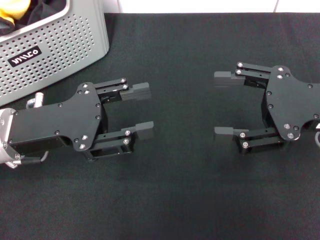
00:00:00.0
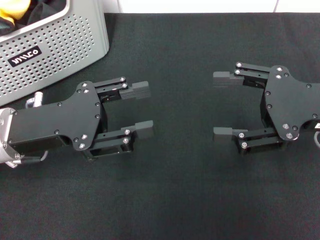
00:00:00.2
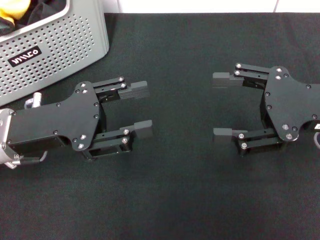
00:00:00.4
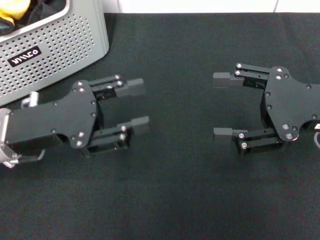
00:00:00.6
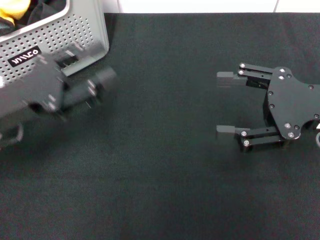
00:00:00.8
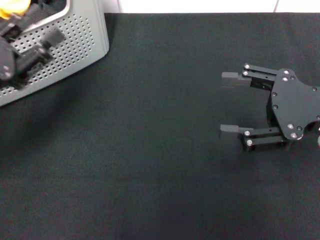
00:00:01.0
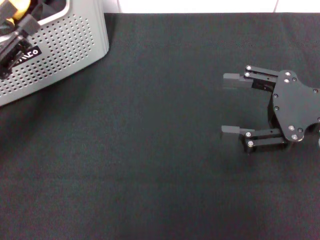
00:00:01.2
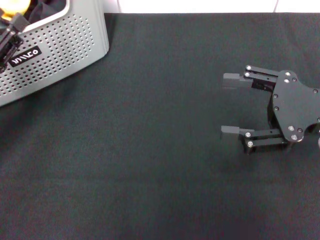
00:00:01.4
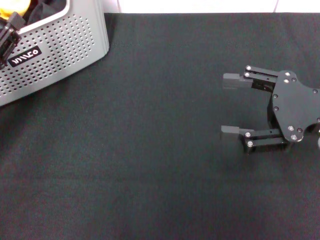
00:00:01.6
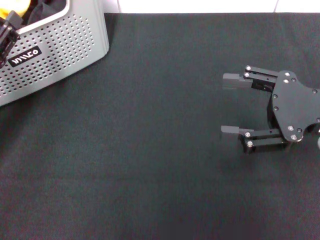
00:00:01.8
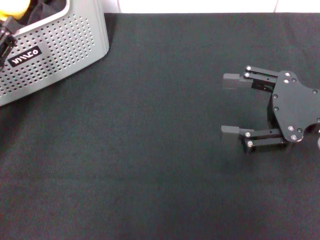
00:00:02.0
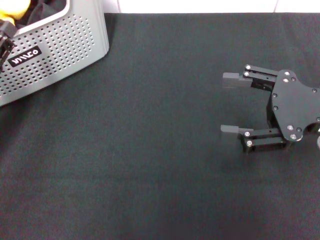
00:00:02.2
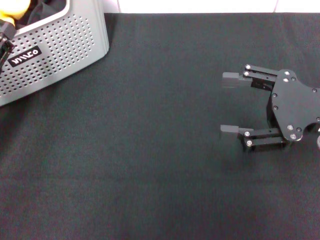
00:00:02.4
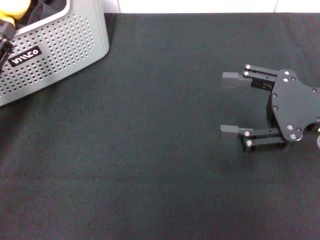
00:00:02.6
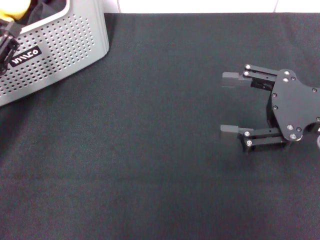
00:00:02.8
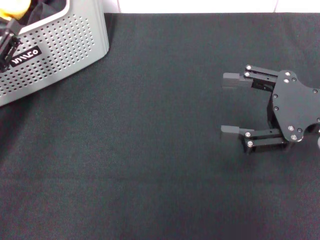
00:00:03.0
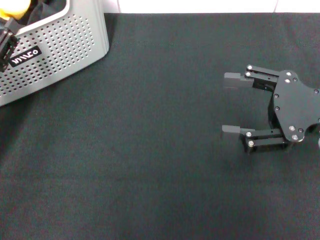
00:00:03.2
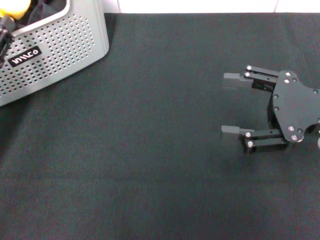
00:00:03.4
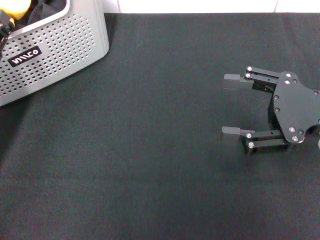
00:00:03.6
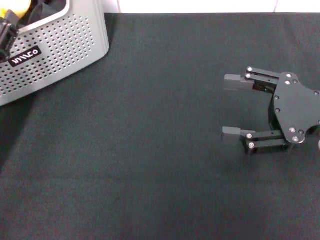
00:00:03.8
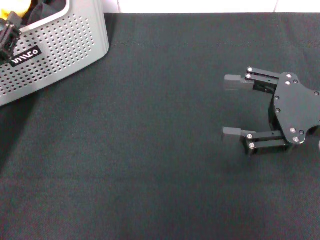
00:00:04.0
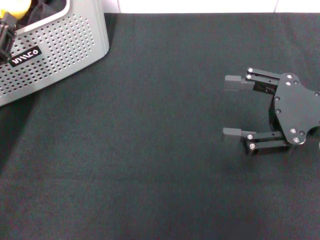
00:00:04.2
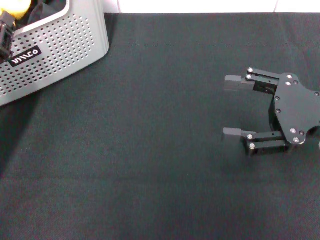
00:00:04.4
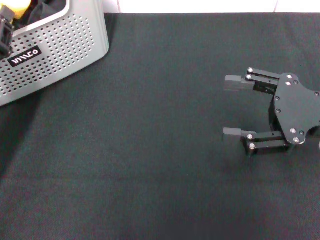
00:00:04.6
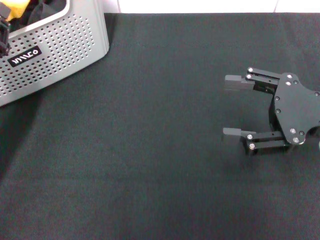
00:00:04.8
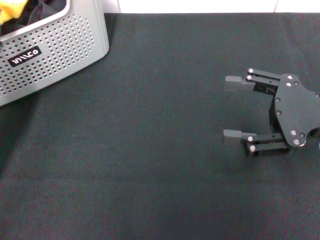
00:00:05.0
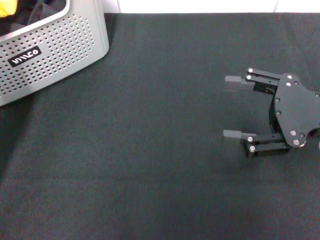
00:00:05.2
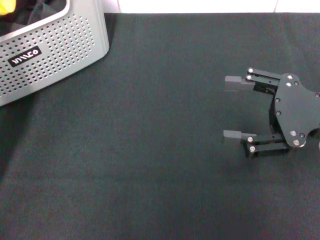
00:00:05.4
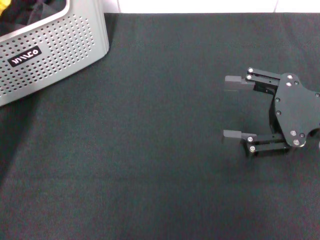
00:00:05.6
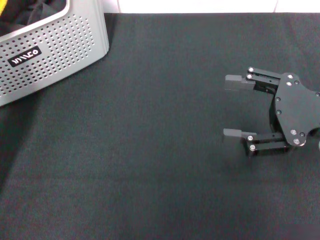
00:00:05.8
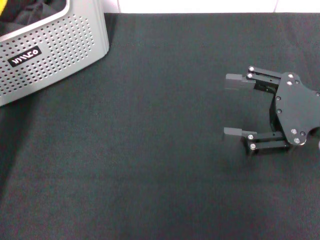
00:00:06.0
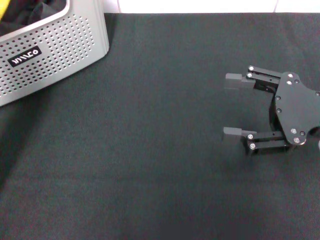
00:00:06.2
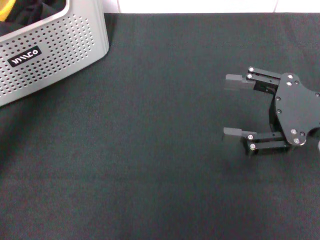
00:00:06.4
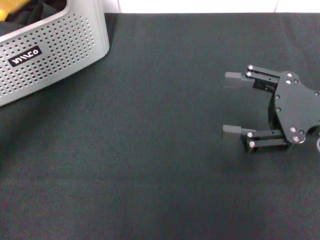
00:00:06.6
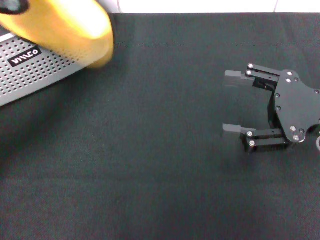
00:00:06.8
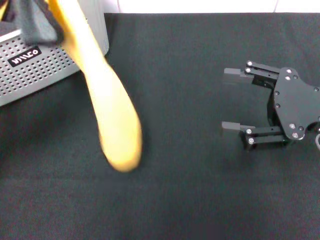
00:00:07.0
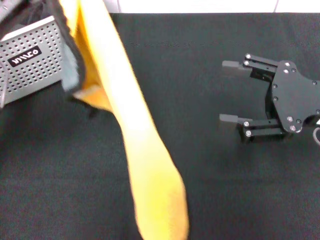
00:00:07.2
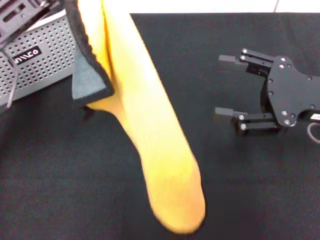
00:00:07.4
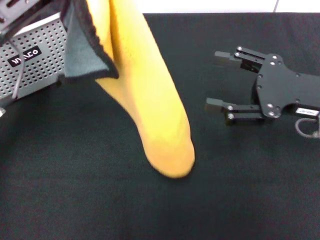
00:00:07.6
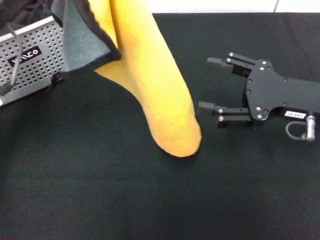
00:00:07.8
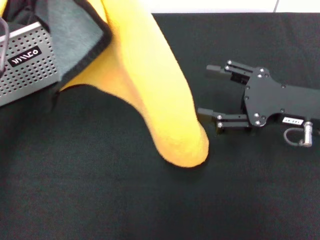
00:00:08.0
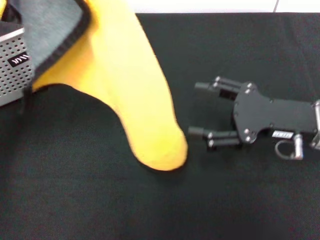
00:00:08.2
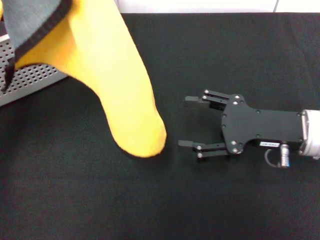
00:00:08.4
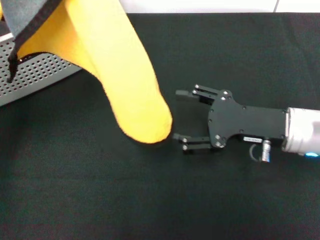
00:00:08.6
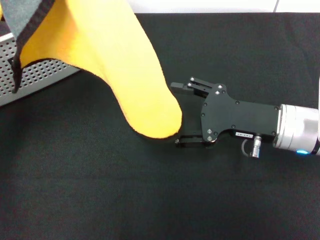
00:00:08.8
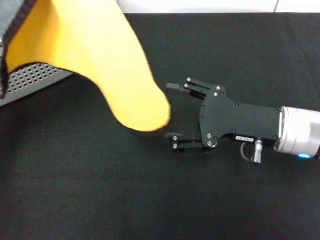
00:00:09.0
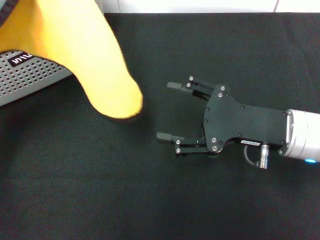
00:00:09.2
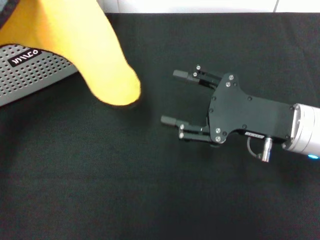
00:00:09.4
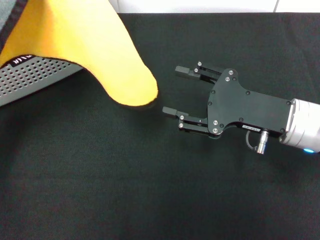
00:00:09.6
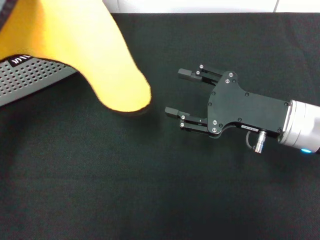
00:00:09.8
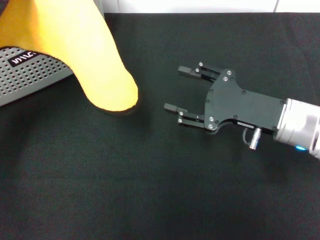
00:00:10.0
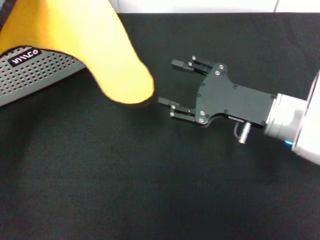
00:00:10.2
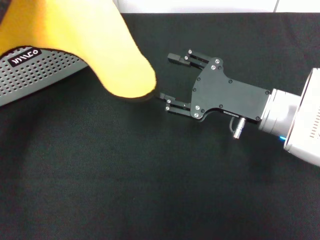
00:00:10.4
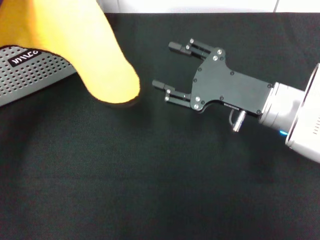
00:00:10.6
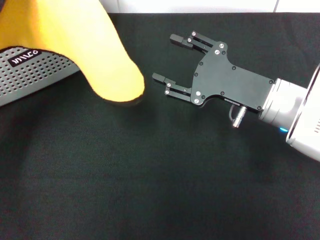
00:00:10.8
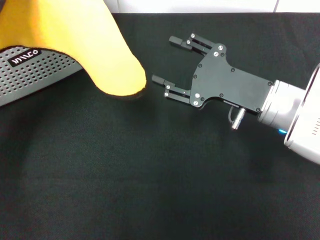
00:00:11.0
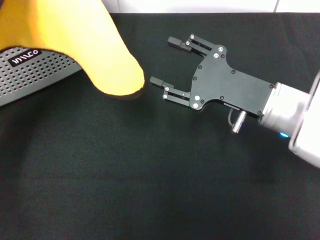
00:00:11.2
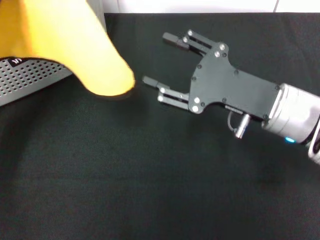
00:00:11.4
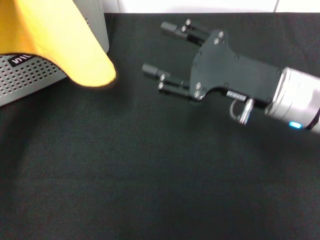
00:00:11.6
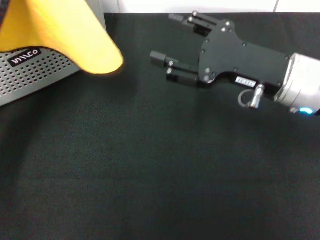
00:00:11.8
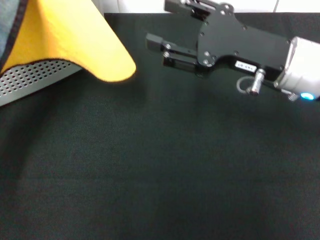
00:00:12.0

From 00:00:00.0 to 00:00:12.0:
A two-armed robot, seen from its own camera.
Task of the whole recording: pick up the towel from the storage box and lay it flat on the black tablecloth.
Step, from 00:00:00.0 to 00:00:04.8: Pick up a towel with the left gripper.
From 00:00:00.0 to 00:00:01.6: The left gripper shifts approximately 10 cm to the left.
From 00:00:01.6 to 00:00:04.4: The grippers move only a little.
From 00:00:04.4 to 00:00:06.0: The left gripper closes up.
From 00:00:06.0 to 00:00:07.6: The left gripper shifts approximately 10 cm upward and to the right.
From 00:00:07.6 to 00:00:09.0: The right gripper moves to the left, approximately 5 cm.
From 00:00:10.4 to 00:00:12.0: The right gripper is displaced upward by about 5 cm.

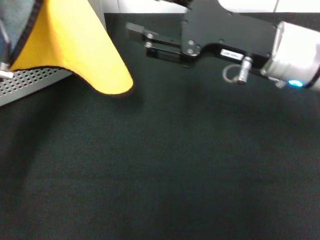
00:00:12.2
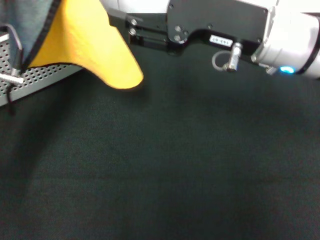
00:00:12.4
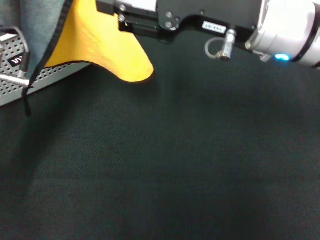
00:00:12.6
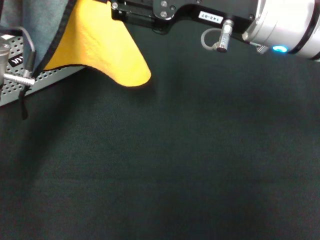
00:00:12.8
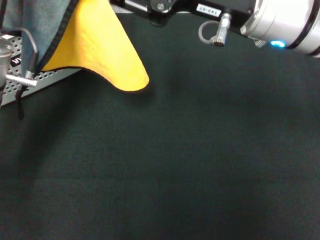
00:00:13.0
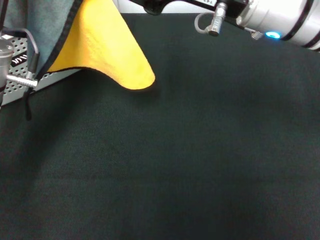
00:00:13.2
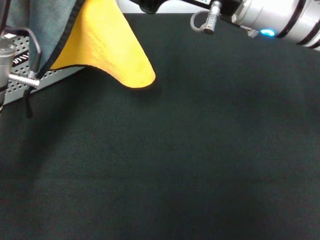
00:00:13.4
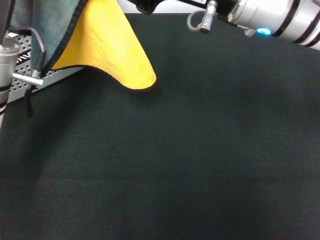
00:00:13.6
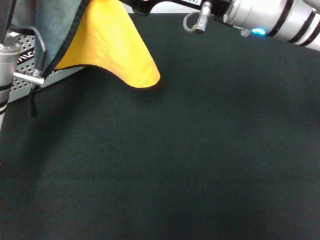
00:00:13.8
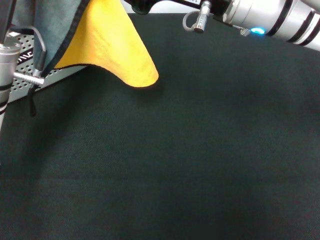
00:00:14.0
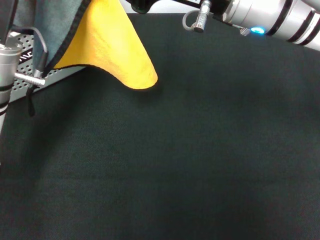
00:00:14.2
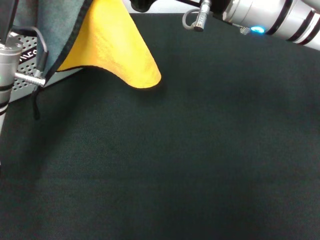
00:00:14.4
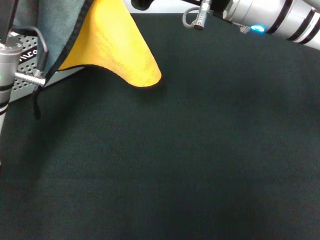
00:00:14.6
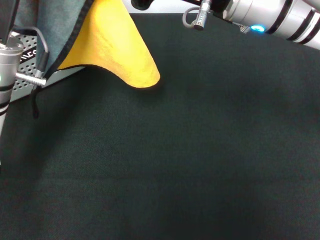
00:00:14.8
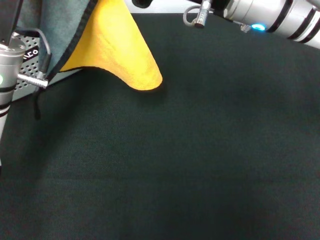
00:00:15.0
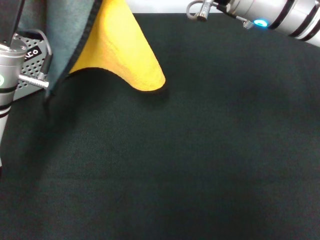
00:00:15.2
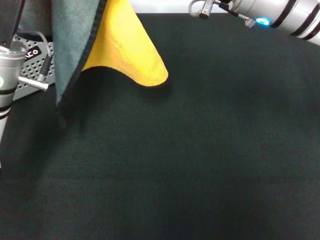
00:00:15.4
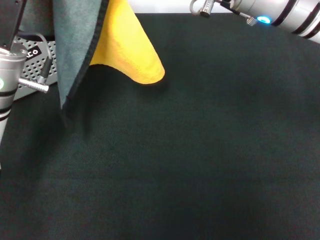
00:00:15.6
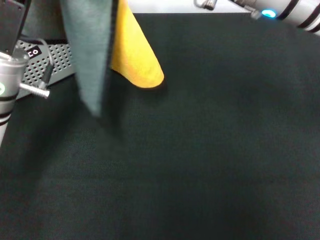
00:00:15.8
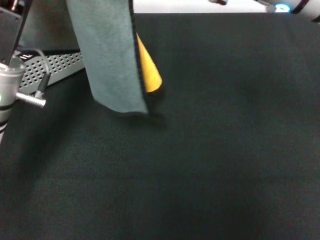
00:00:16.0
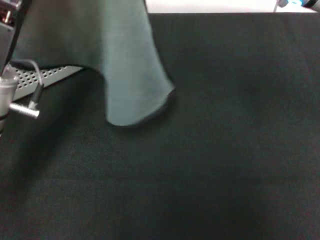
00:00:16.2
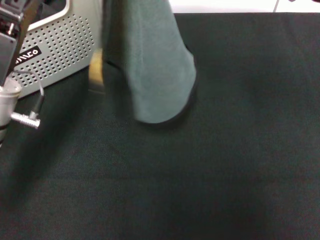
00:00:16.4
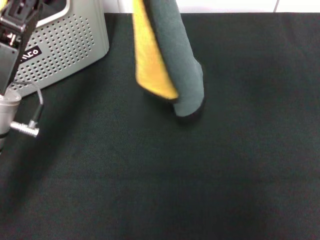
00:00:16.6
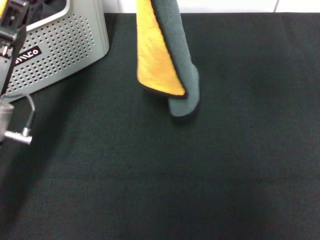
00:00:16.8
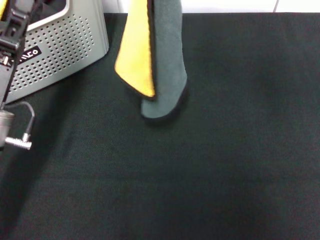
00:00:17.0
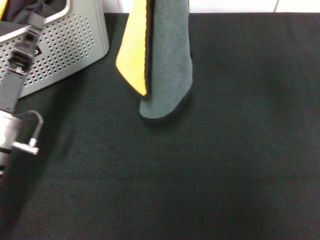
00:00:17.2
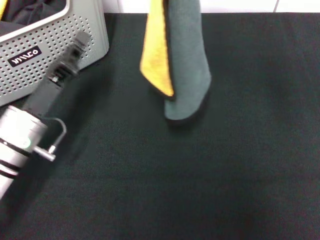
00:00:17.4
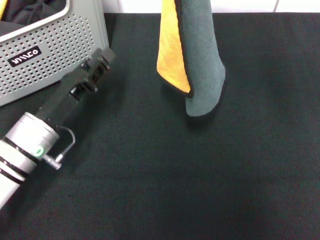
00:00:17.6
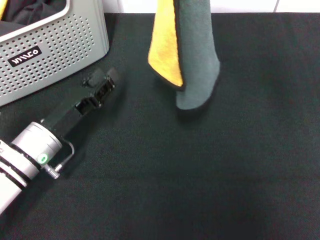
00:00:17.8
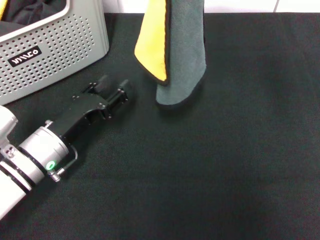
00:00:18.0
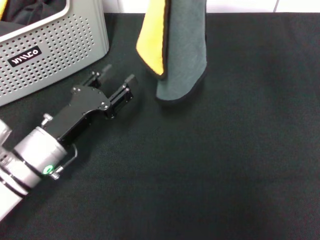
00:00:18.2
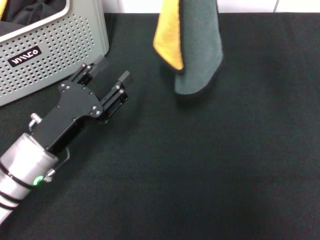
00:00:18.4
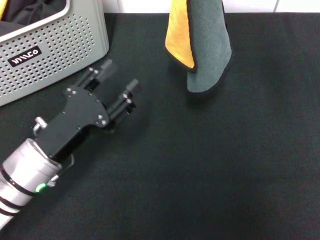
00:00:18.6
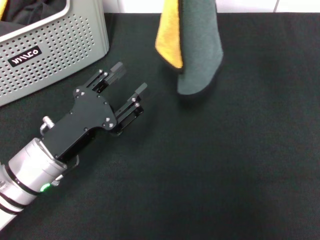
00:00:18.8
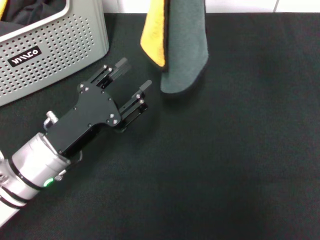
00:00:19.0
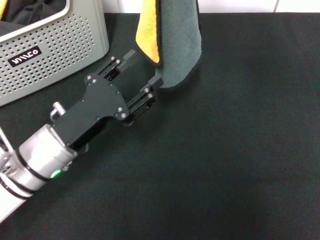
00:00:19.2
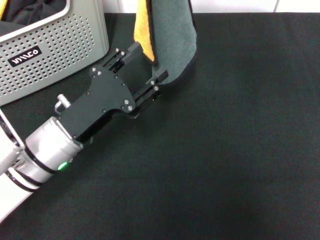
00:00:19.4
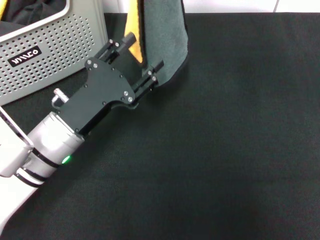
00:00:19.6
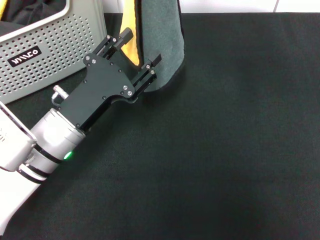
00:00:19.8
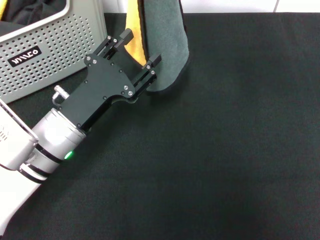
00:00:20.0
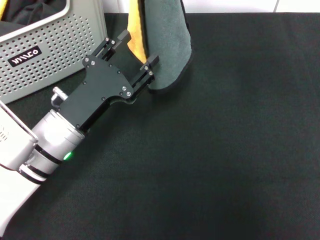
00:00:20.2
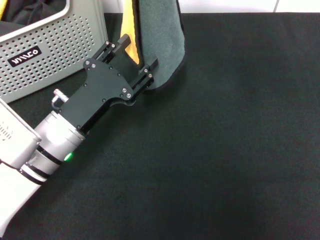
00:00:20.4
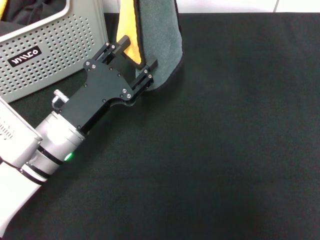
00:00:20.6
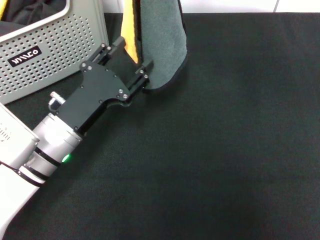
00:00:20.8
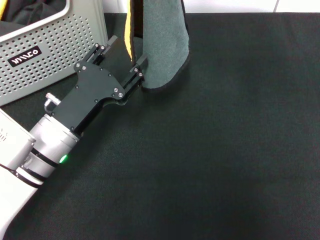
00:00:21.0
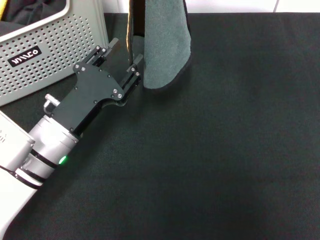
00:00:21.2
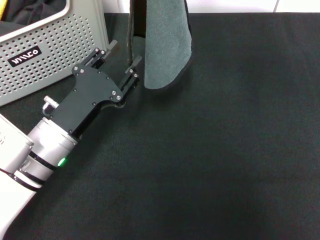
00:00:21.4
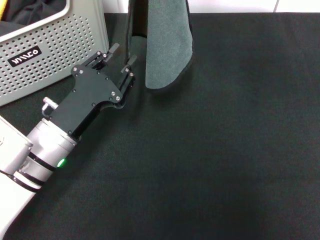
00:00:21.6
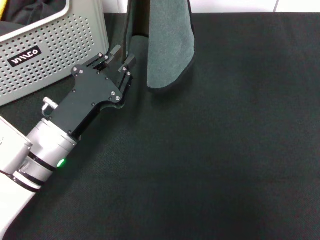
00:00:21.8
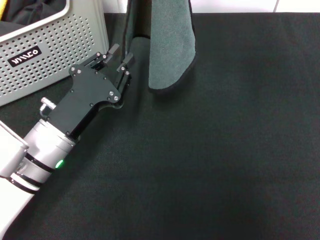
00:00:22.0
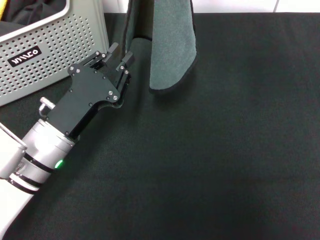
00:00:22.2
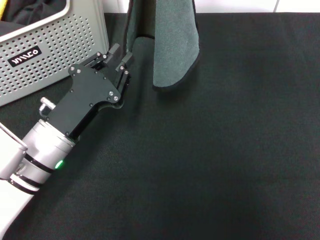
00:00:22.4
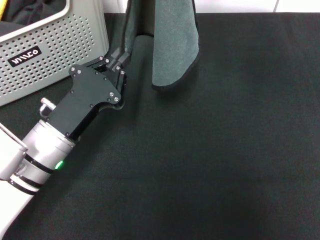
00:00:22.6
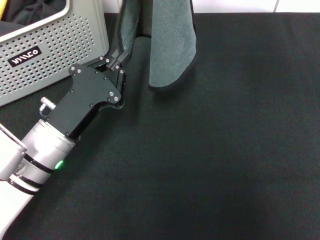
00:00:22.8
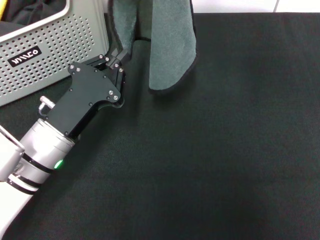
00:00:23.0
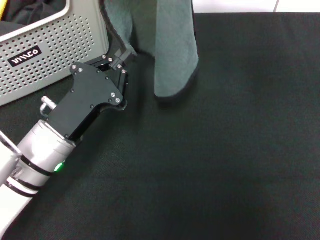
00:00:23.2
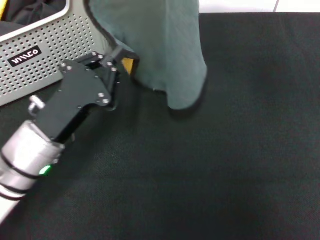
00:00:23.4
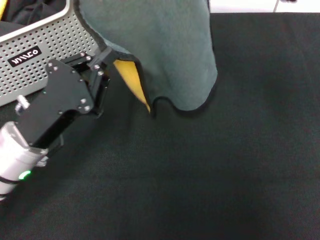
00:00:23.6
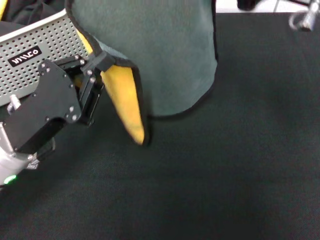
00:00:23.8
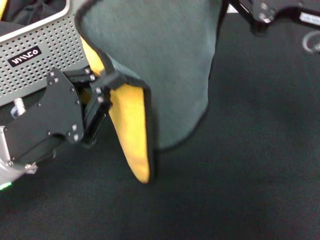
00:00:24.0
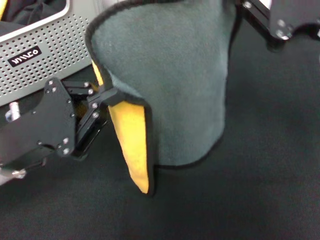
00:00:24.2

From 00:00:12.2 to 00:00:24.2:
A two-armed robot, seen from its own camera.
Task of the whole recording: pick up the towel from the storage box and lay it flat on the black tablecloth.
From 00:00:12.2 to 00:00:13.8: The right gripper shifts by some 5 cm, and closes up.
From 00:00:13.8 to 00:00:15.2: The right gripper closes.
From 00:00:15.2 to 00:00:16.6: The left gripper shifts by approximately 5 cm. The right gripper shifts by about 5 cm.
From 00:00:16.6 to 00:00:18.2: The left gripper goes some 5 cm downward, and opens its fingers. The right gripper changes place by about 5 cm.
From 00:00:18.2 to 00:00:19.8: The right gripper ends up some 5 cm from where it was.
From 00:00:19.8 to 00:00:21.2: The grippers stay close to where they were, moving slightly.
From 00:00:21.2 to 00:00:22.6: The left gripper closes.
From 00:00:22.6 to 00:00:24.2: The right gripper travels backward, to the right and downward by approximately 15 cm, while the left gripper travels upward by roughly 5 cm.
